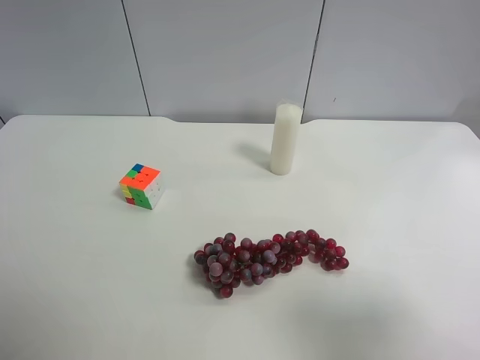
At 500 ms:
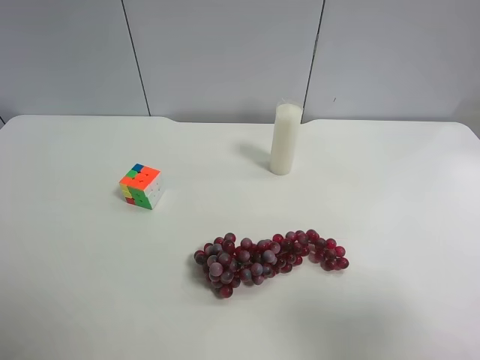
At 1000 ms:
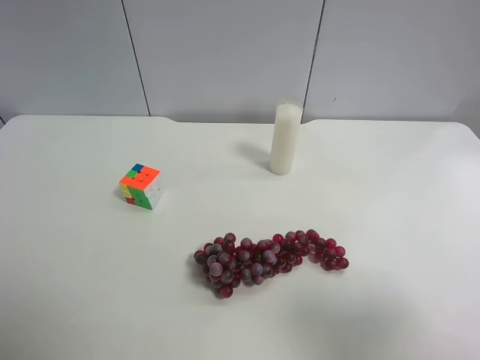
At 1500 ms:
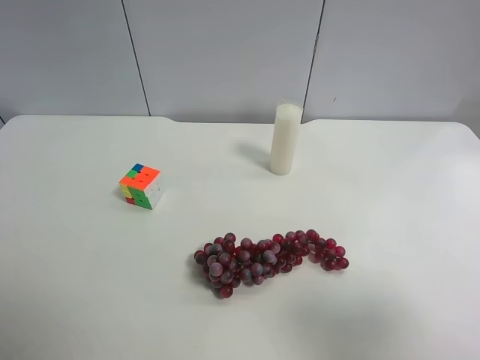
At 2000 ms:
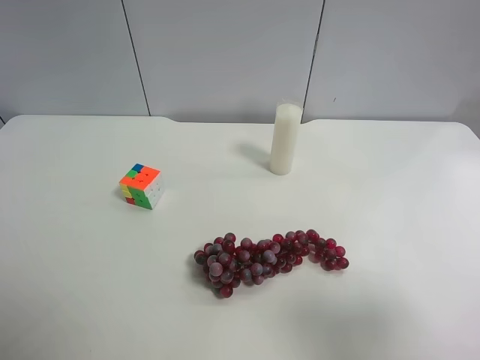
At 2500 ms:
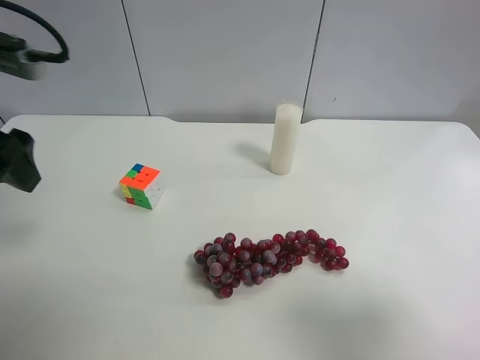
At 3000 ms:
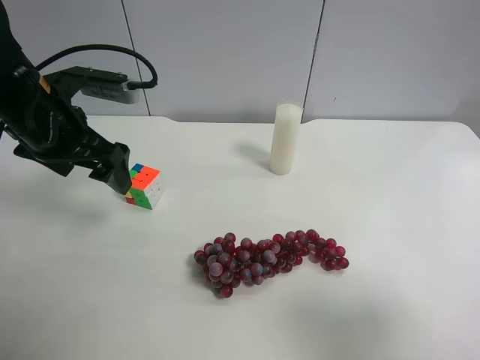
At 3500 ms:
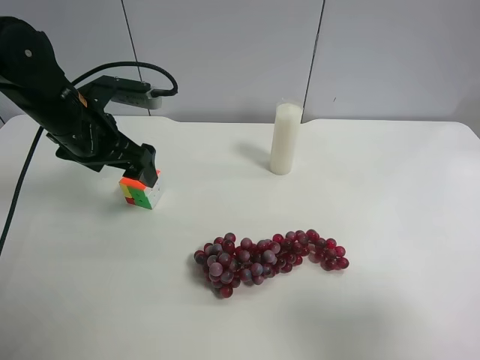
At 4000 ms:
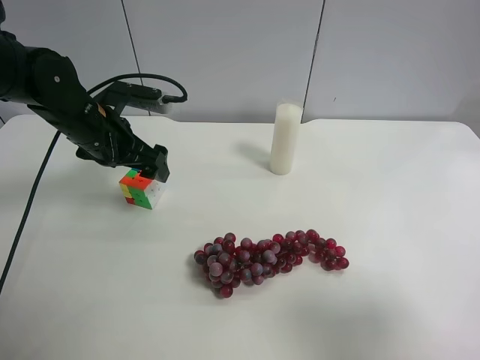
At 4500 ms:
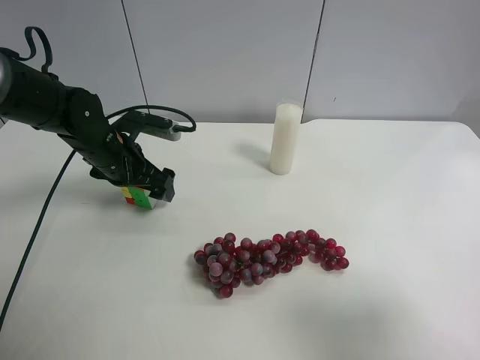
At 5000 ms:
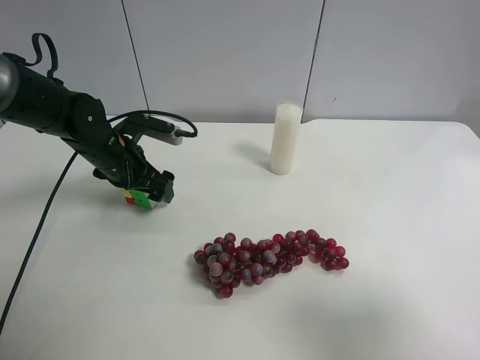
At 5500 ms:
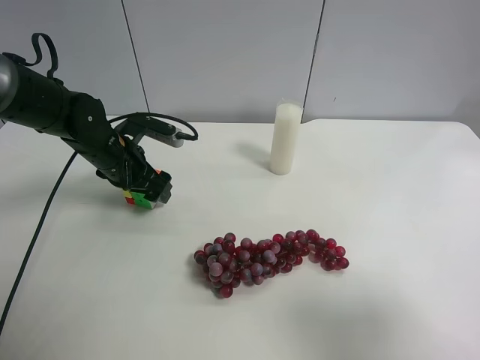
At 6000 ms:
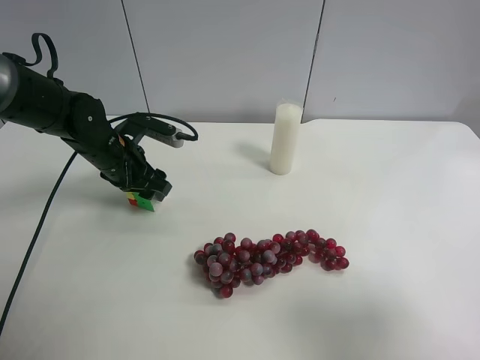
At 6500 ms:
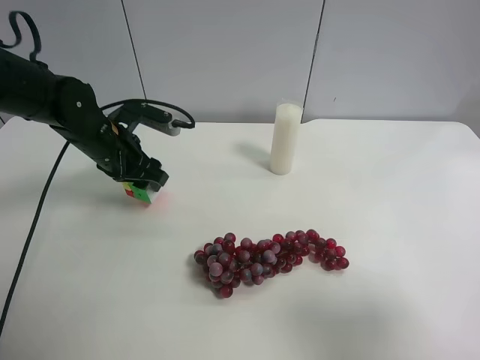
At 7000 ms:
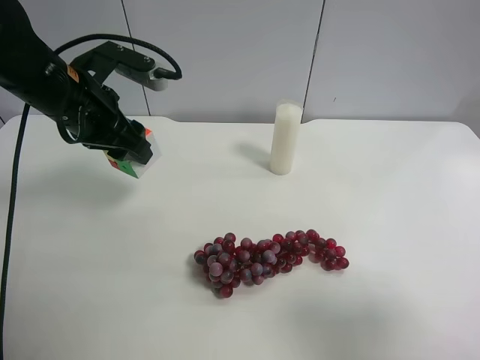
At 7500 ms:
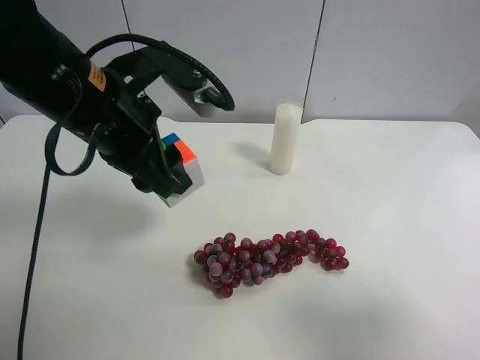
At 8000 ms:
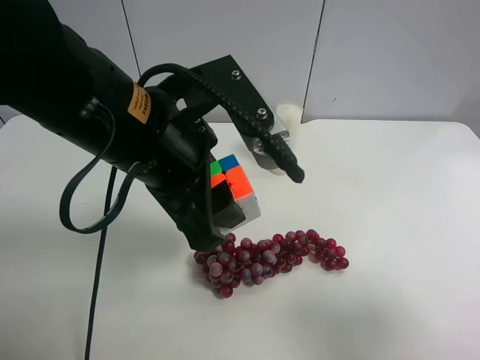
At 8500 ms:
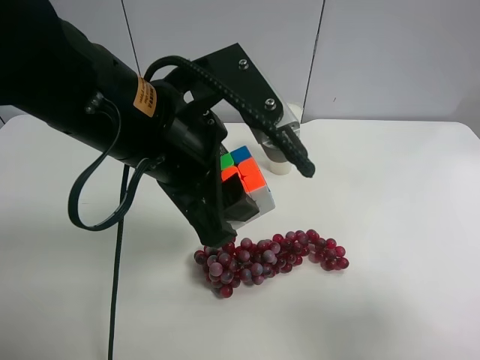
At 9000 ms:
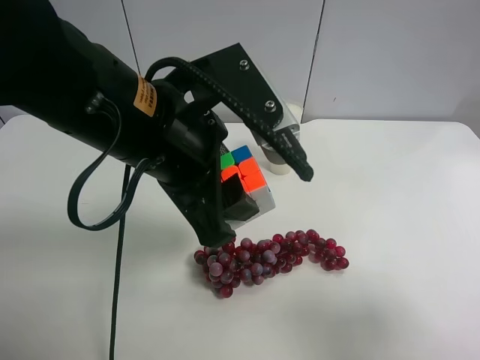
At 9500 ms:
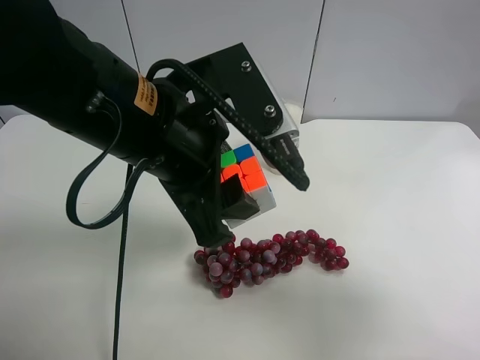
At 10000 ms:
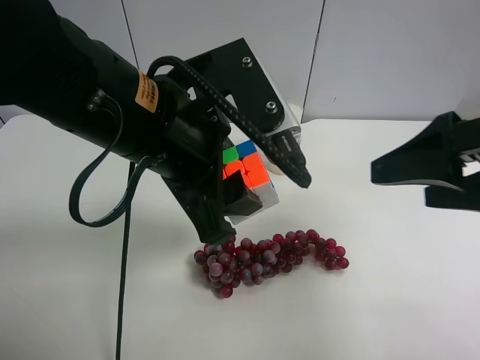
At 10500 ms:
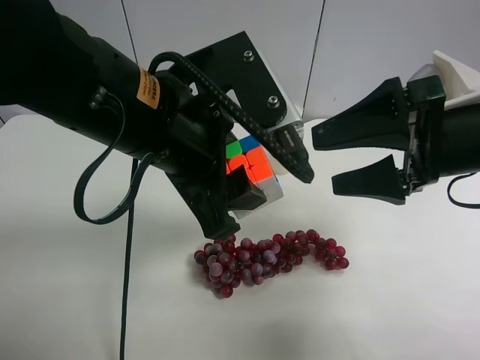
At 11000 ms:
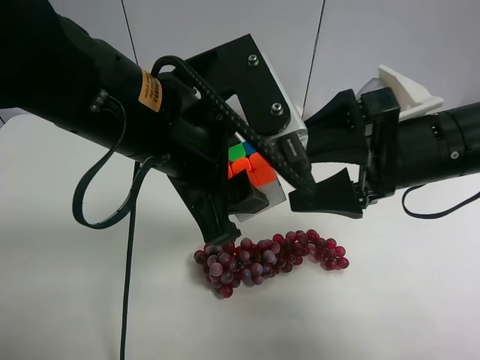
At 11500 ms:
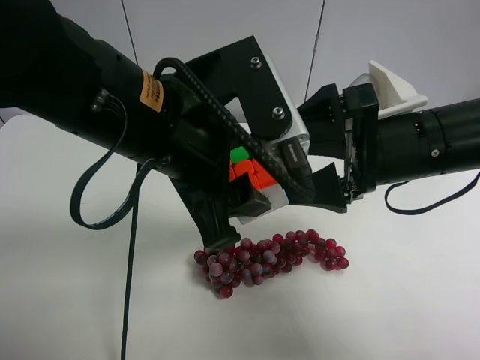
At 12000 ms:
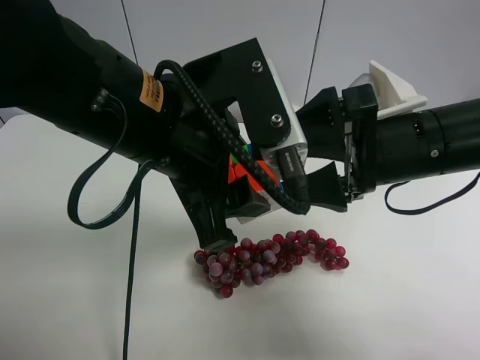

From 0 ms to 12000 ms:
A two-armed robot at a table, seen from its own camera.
Task of the whole recording: use the left gripper to pick up the item and transfer it from the left gripper to the right gripper.
From 2000 ms to 4000 ms: The left gripper heads forward, downward and to the right, covering approximately 30 cm.
From 4000 ms to 6000 ms: The left gripper shifts approximately 5 cm downward, and closes up.
From 6000 ms to 8000 ms: The left gripper moves backward, upward and to the right, roughly 25 cm.
From 8000 ms to 10000 ms: The right gripper is displaced forward by some 15 cm.
From 10000 ms to 12000 ms: The right gripper is displaced to the left and forward by some 10 cm.

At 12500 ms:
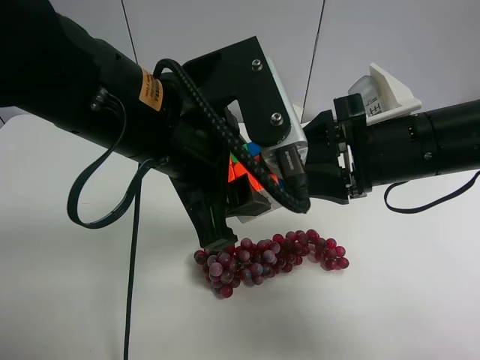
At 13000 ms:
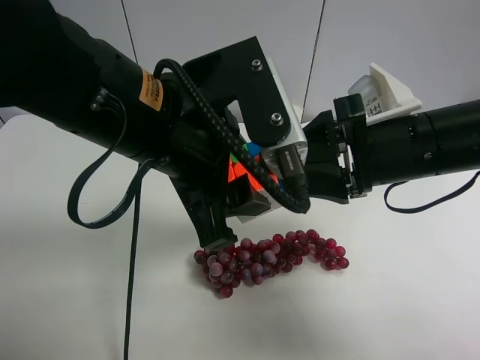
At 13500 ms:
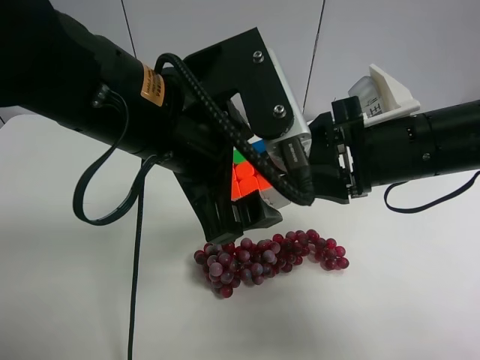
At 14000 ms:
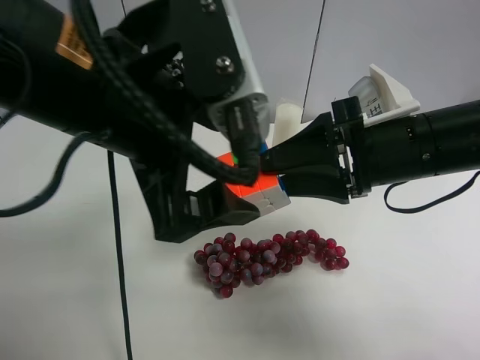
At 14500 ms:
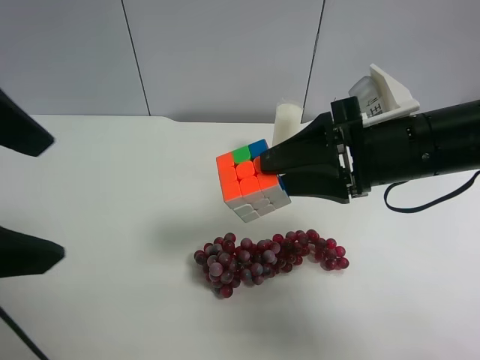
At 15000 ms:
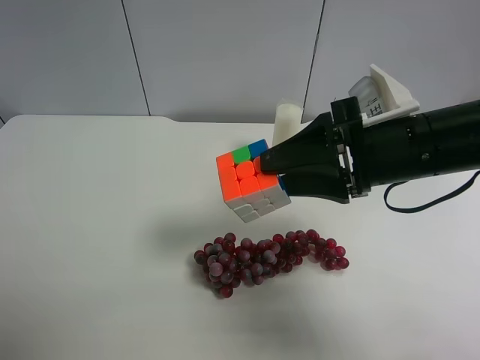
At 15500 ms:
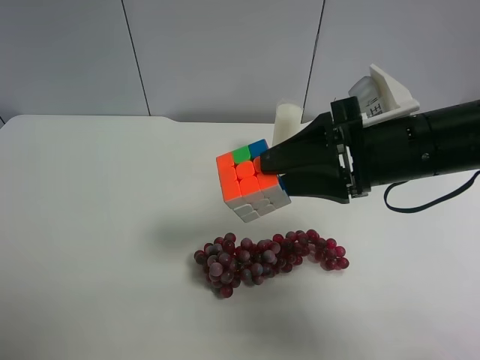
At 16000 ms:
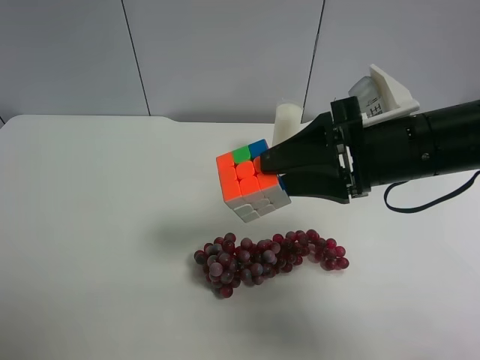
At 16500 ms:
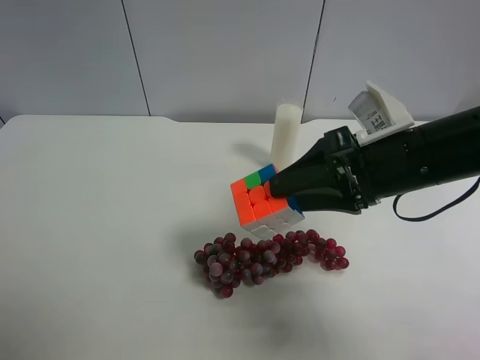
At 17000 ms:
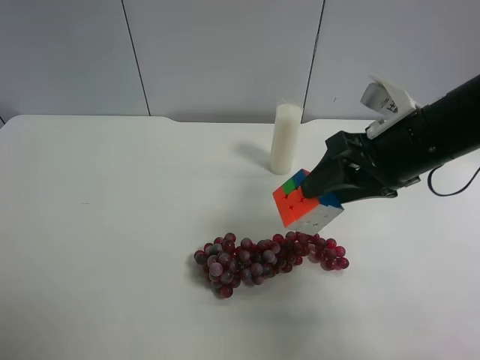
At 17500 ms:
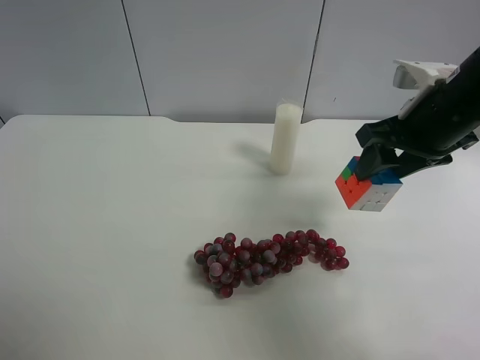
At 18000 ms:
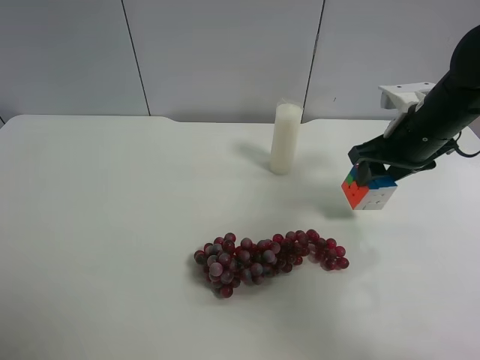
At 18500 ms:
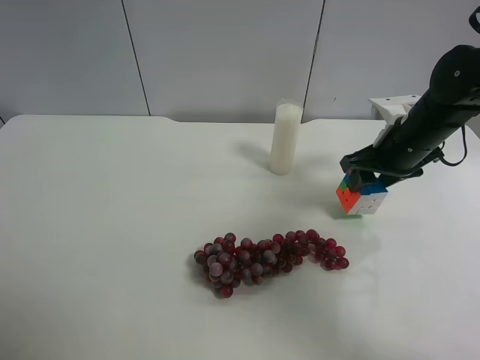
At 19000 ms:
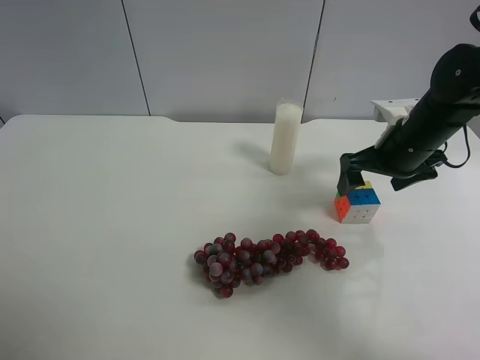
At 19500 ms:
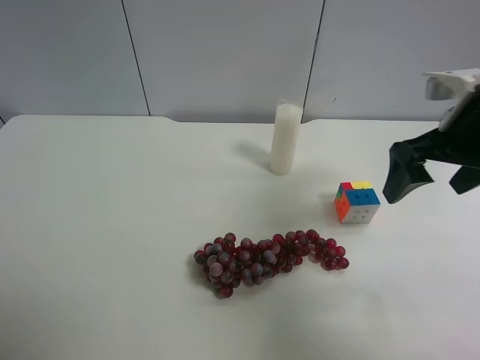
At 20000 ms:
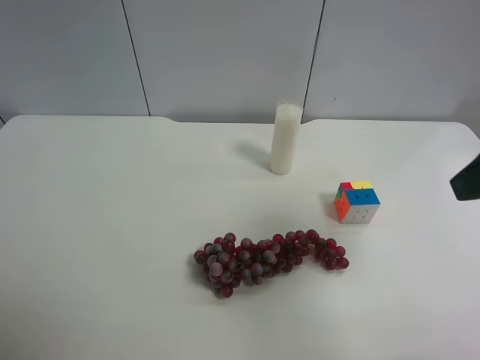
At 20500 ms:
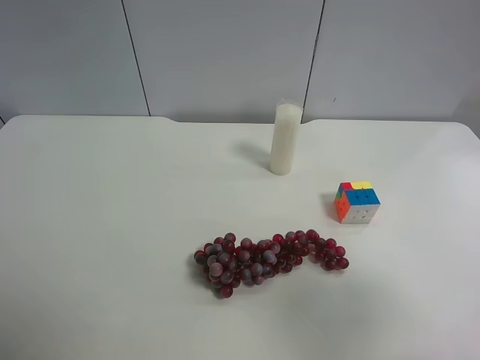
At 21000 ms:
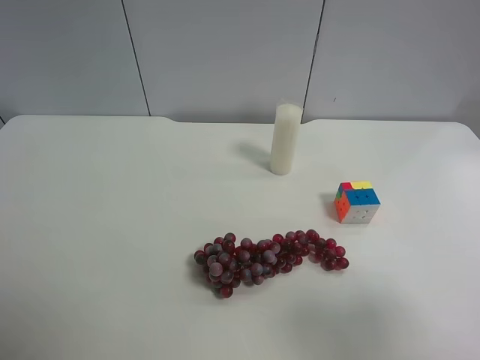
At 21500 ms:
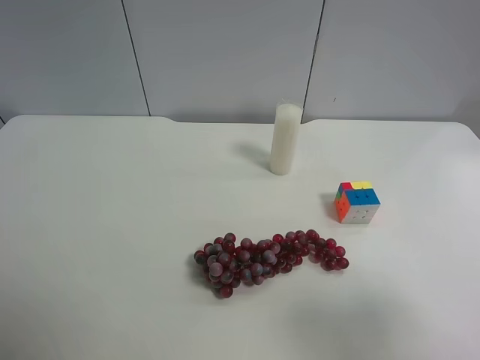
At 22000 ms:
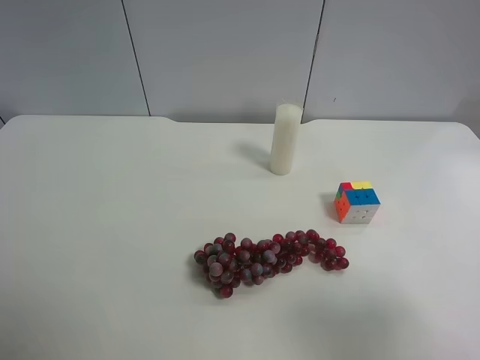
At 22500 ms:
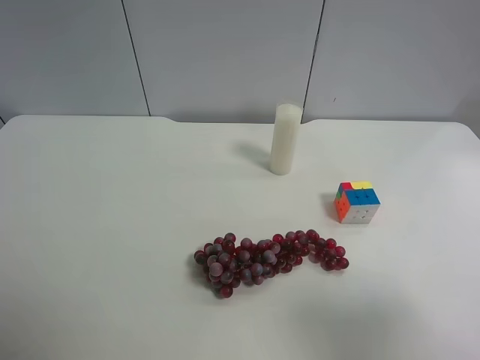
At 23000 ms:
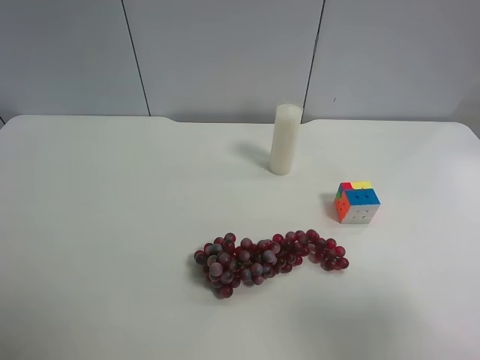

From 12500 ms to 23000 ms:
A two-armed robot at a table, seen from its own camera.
Task of the whole recording: use the left gripper to pick up the item and transfer it from the left gripper to the right gripper.
From 12500 ms to 14500 ms: The left gripper goes approximately 20 cm to the left, upward and backward, and opens.
From 14500 ms to 16500 ms: The left gripper is displaced to the left, backward and downward by about 20 cm.
From 16500 ms to 19000 ms: The right gripper goes approximately 15 cm forward, to the right and downward, and opens its fingers.
From 19000 ms to 21000 ms: The right gripper shifts approximately 30 cm backward.
